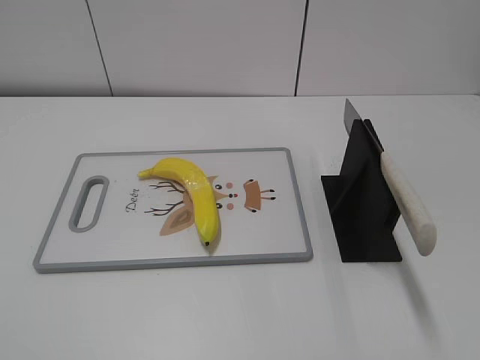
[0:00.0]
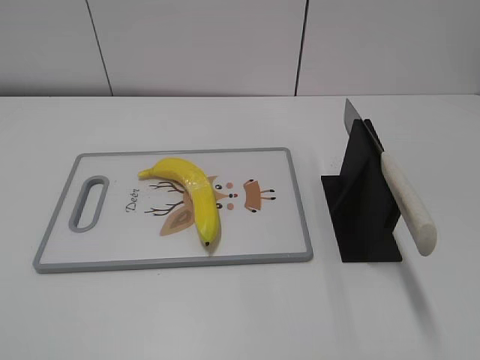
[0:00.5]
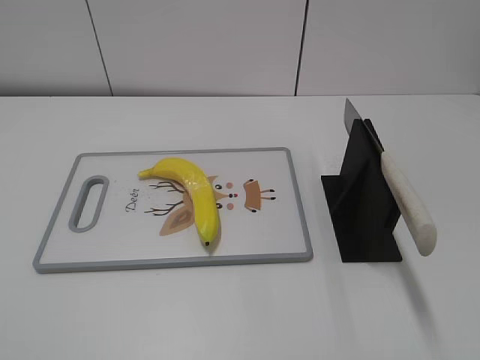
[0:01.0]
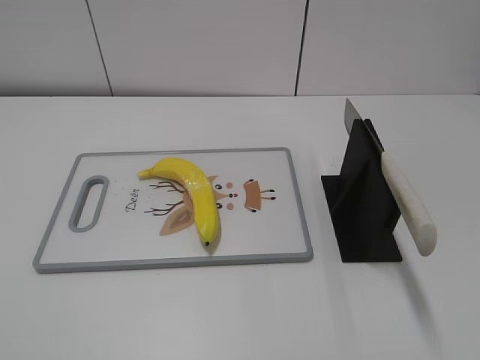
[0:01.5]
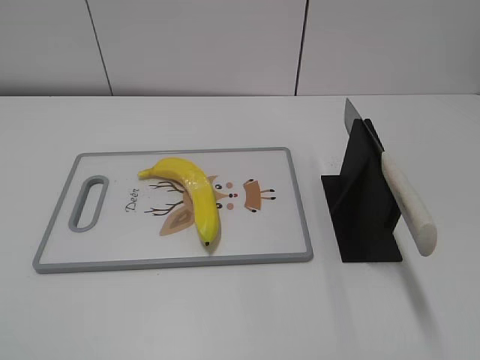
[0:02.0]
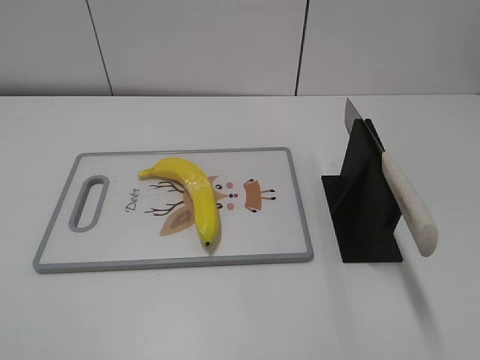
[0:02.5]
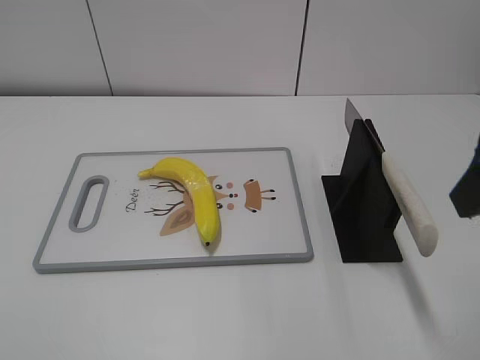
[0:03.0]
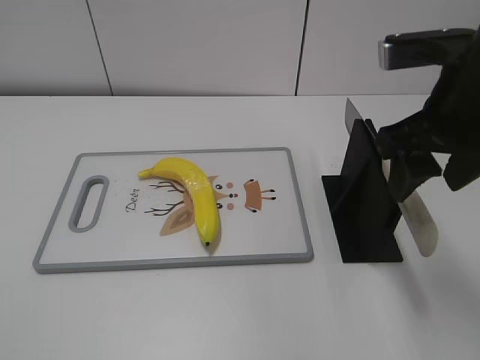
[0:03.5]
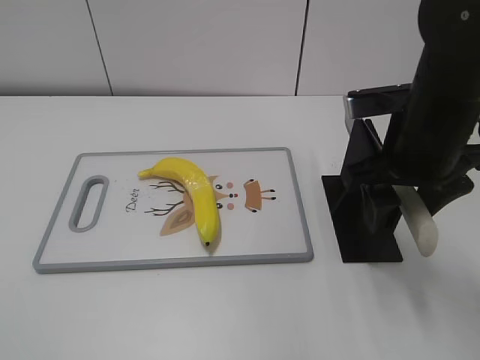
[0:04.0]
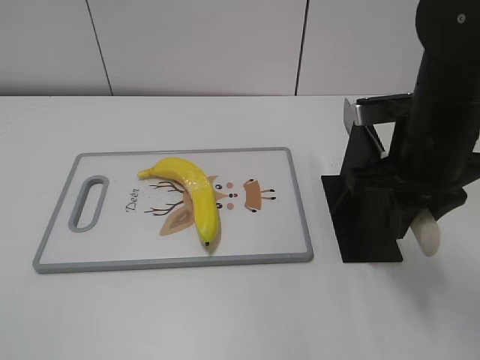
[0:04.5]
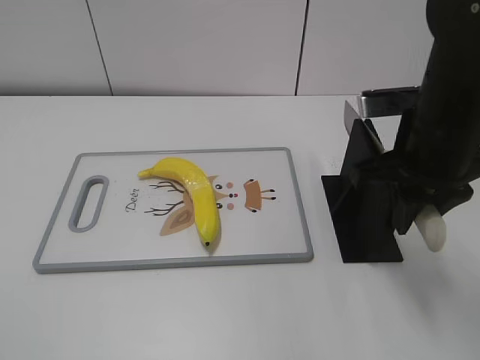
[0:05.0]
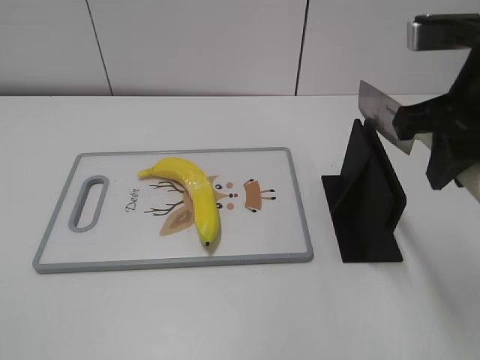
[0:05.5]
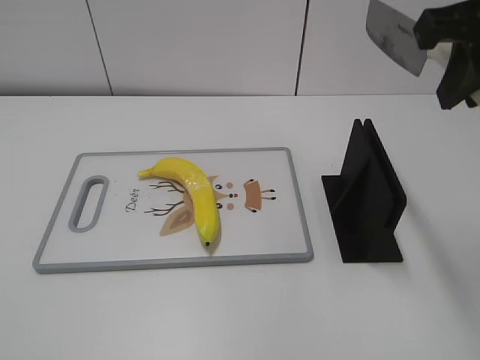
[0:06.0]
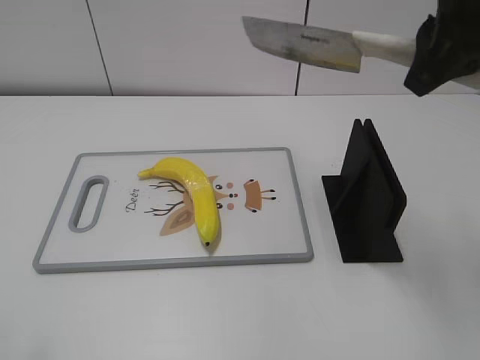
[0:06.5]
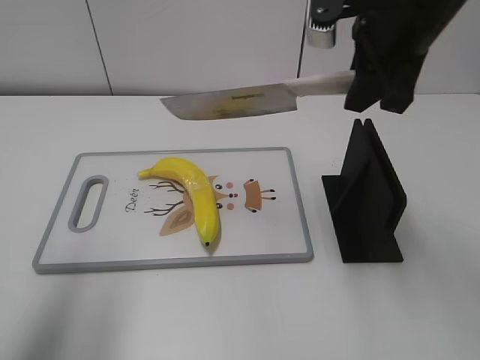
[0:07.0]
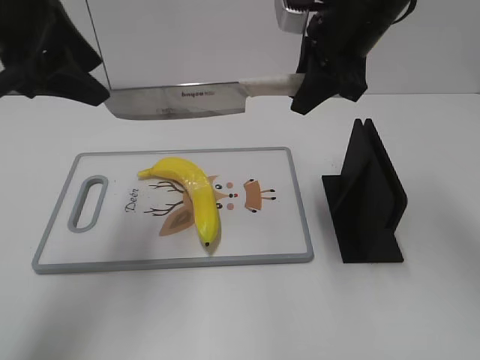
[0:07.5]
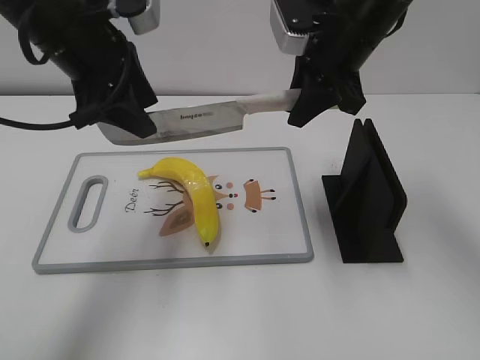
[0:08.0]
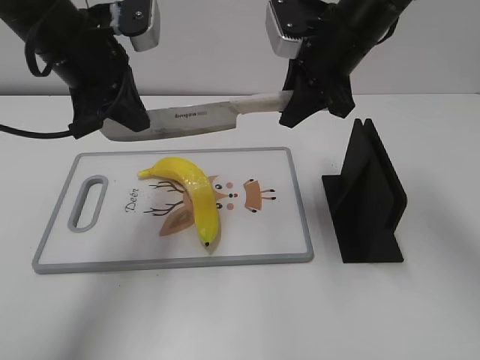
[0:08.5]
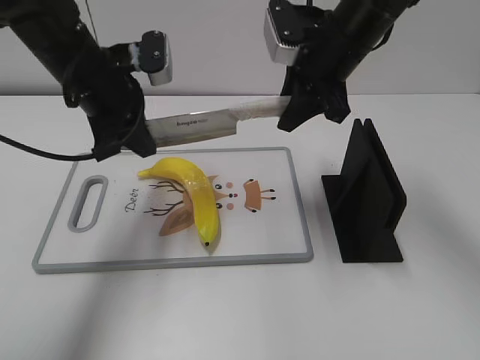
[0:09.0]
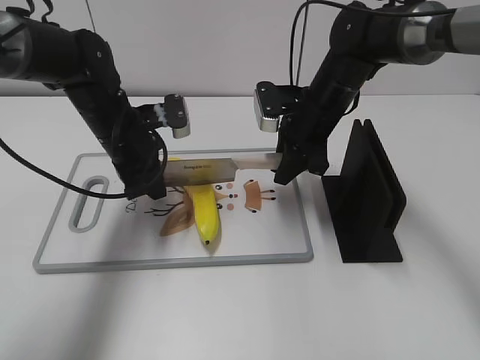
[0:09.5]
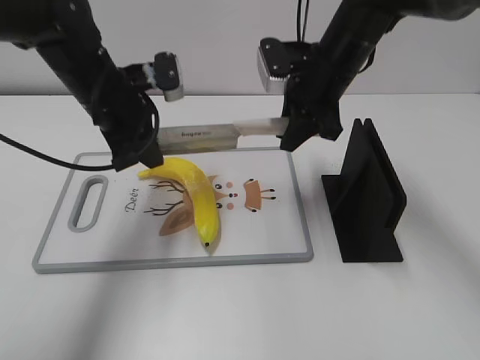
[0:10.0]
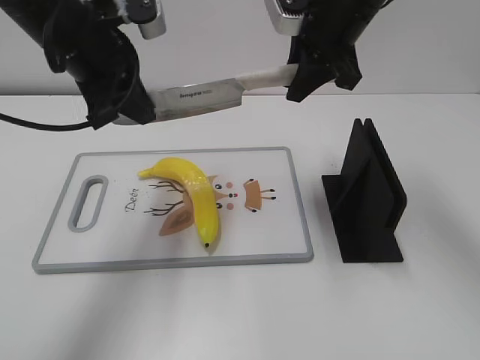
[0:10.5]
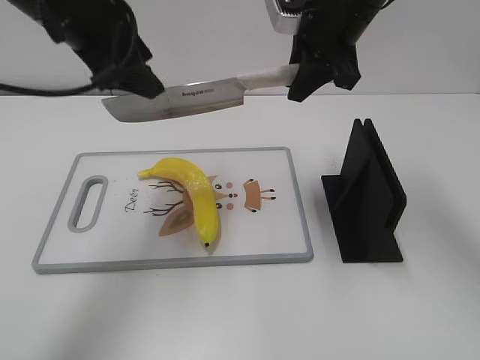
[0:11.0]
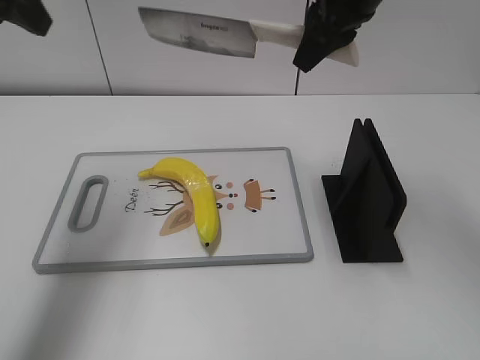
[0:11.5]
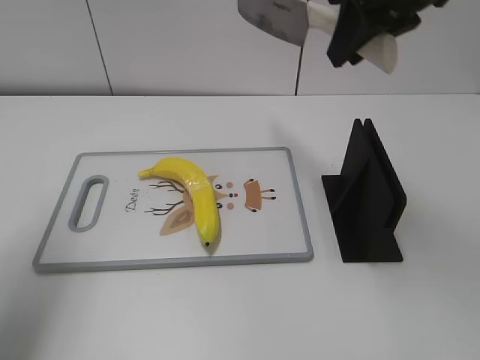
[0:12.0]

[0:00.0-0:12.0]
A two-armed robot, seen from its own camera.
Task of the whole recording: cut plastic banana.
Step, 0:00.0 to 0:05.5: Grab the knife handle with your right hand.
Step, 0:06.0 to 0:10.0: Lift the knife with your right hand.
Step, 0:11.0 to 0:11.5: Cut the banana with your right hand.
0:02.0 to 0:04.0: The right gripper heads forward and to the left, covering some 25 cm.
0:04.0 to 0:06.0: The right gripper travels upward by some 15 cm, and closes its fingers.
0:06.0 to 0:08.0: The left gripper is displaced forward and to the right by some 40 cm, while the right gripper is displaced forward, downward and to the left by roughly 20 cm.
0:08.0 to 0:10.0: The grippers both shift downward by approximately 5 cm. The left gripper closes.
0:10.0 to 0:12.0: The left gripper heads to the left, upward and backward, covering approximately 25 cm, and opens up. The right gripper shifts roughly 15 cm upward and backward.

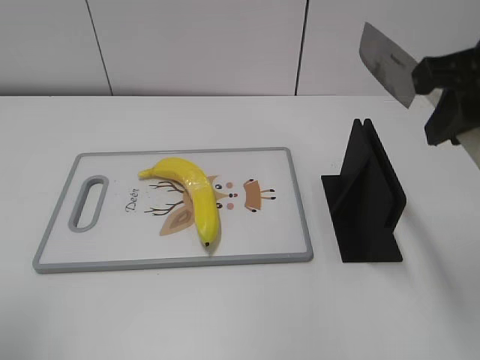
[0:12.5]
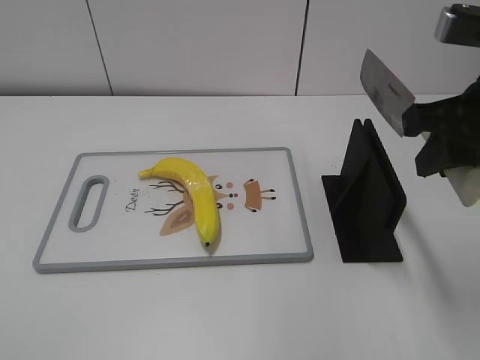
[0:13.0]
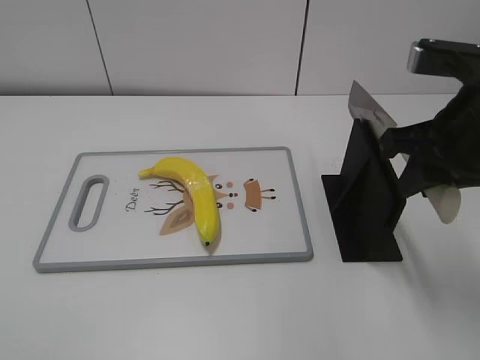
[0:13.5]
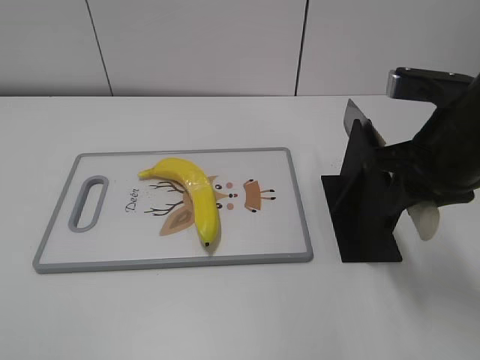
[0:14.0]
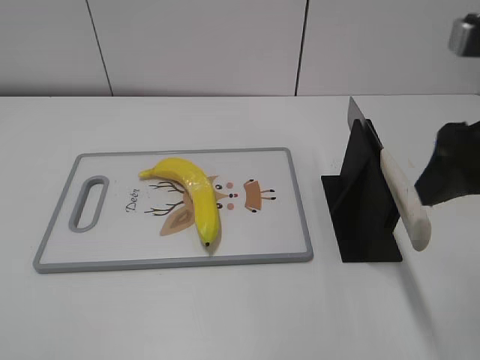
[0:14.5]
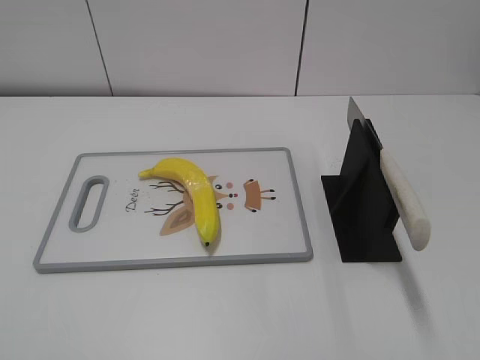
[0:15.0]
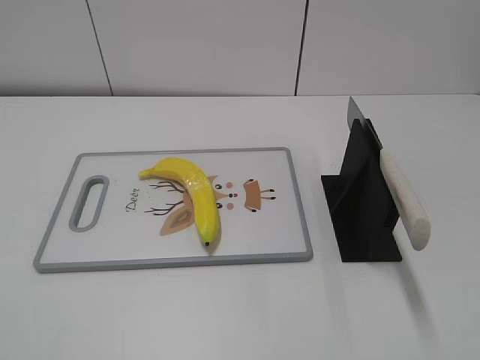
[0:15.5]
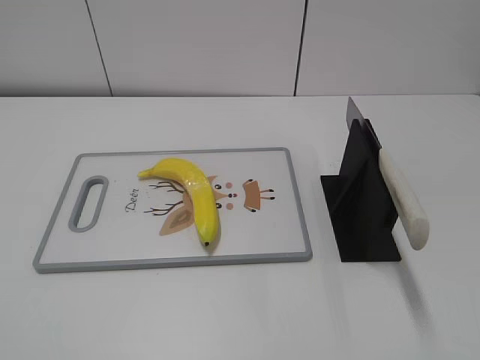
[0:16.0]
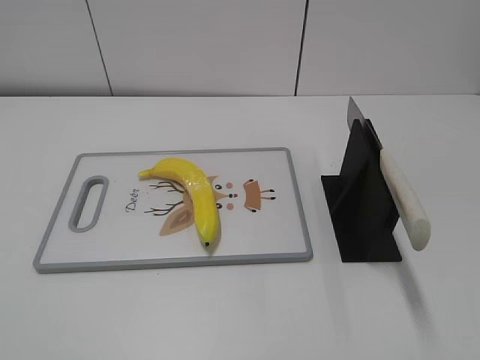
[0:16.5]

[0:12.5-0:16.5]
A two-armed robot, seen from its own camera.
Task of the whole recording: cut plastic banana.
Step, 0:13.5 to 0:16.5: Place the knife on the storage rack with your right hand.
0:12.5 to 0:14.5: The right gripper reaches approximately 10 cm downward, then returns, and opens.
0:14.5 to 0:16.5: The right gripper heads backward and to the right, covering approximately 20 cm.
